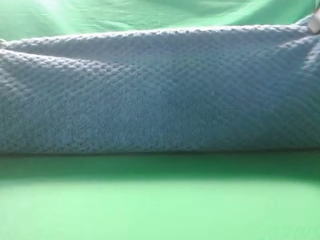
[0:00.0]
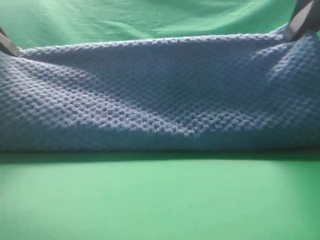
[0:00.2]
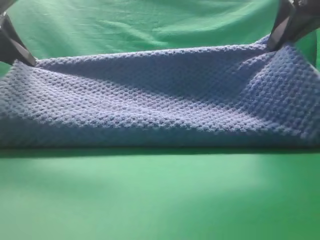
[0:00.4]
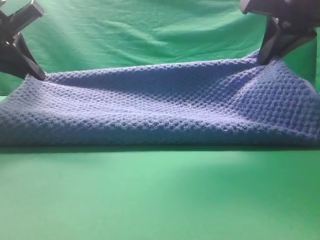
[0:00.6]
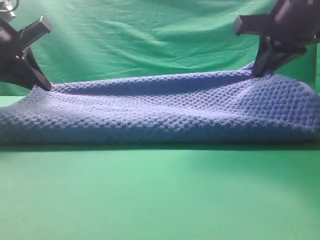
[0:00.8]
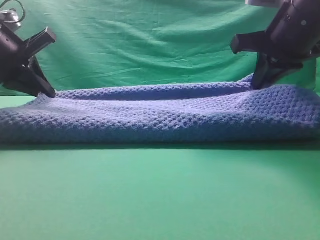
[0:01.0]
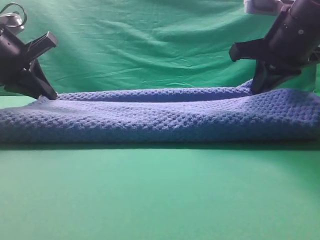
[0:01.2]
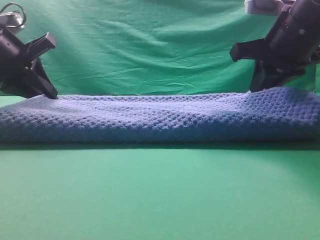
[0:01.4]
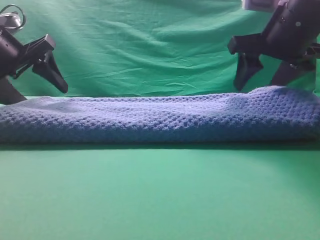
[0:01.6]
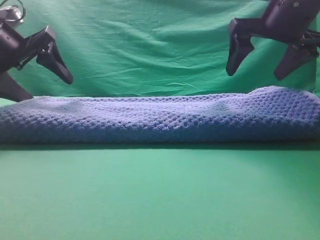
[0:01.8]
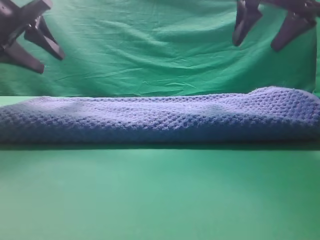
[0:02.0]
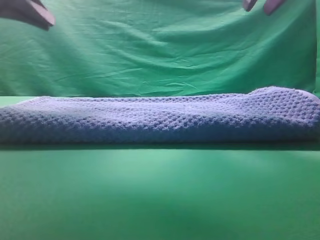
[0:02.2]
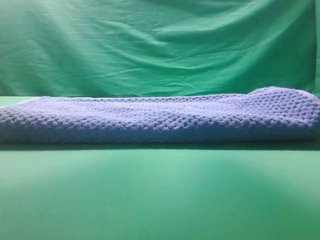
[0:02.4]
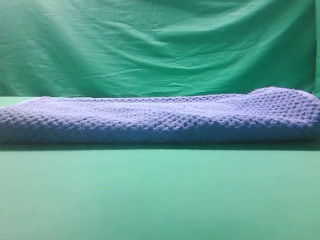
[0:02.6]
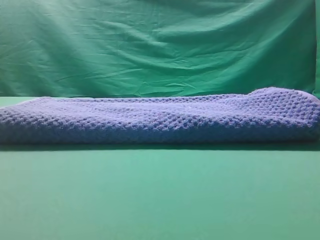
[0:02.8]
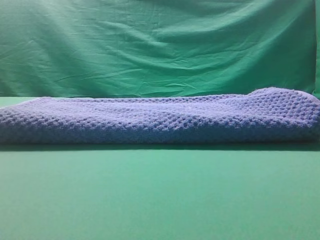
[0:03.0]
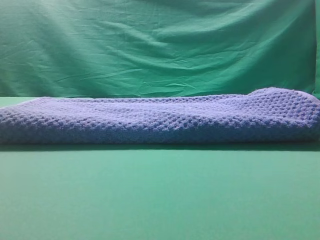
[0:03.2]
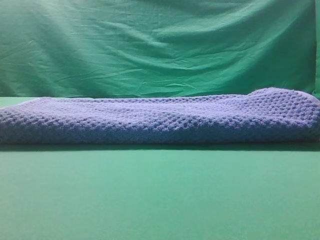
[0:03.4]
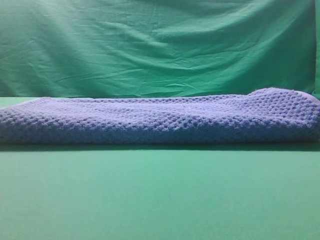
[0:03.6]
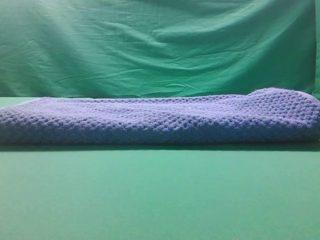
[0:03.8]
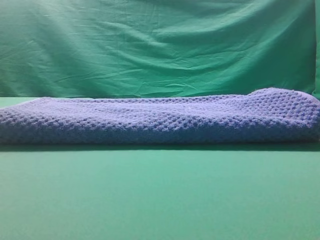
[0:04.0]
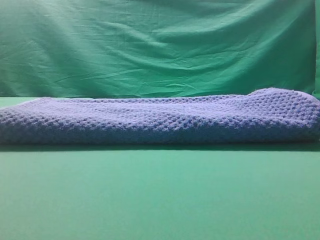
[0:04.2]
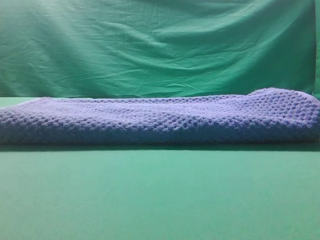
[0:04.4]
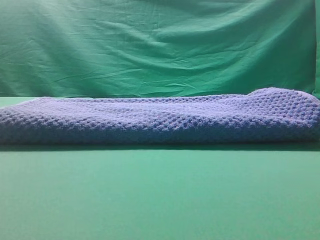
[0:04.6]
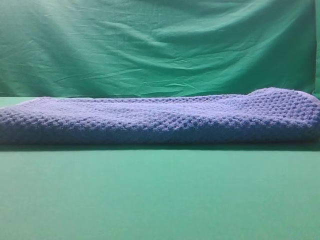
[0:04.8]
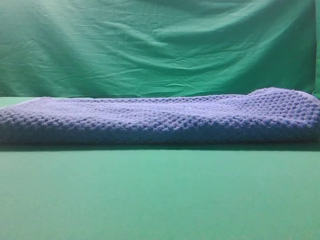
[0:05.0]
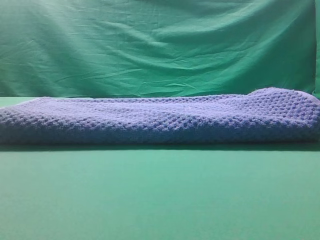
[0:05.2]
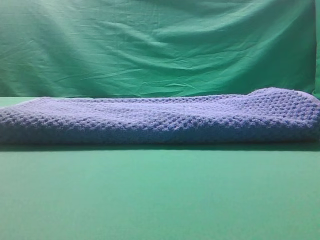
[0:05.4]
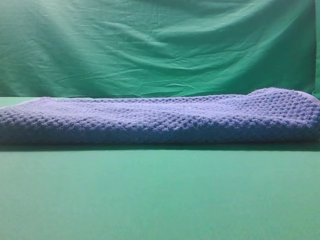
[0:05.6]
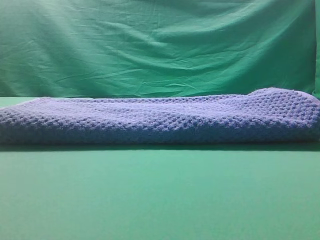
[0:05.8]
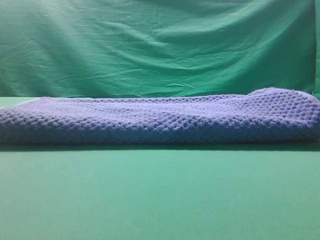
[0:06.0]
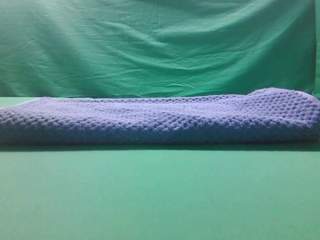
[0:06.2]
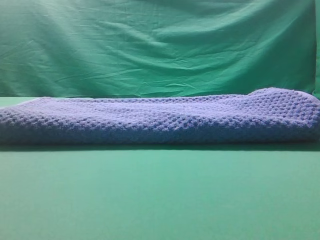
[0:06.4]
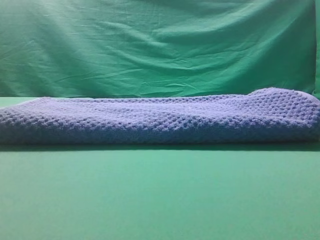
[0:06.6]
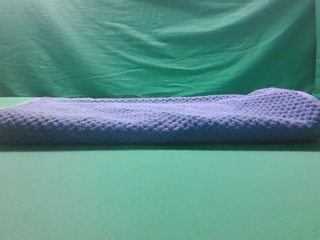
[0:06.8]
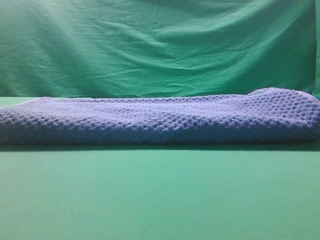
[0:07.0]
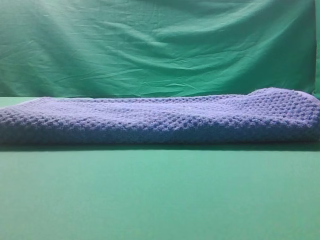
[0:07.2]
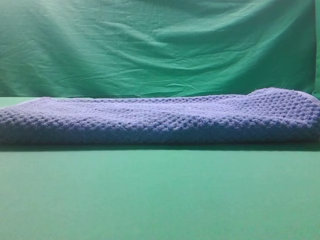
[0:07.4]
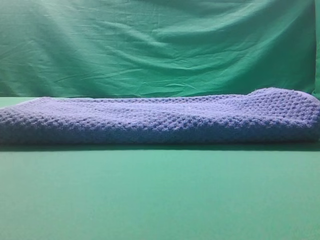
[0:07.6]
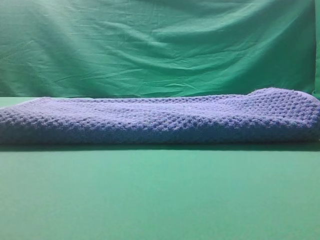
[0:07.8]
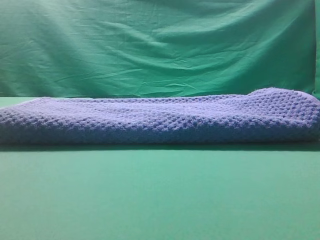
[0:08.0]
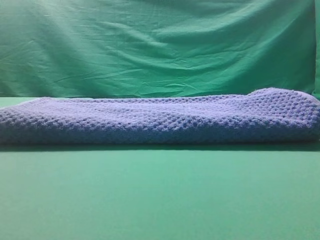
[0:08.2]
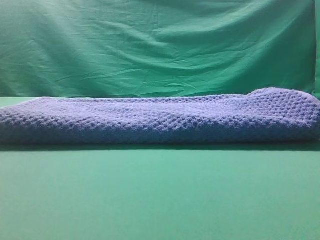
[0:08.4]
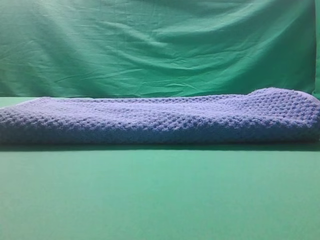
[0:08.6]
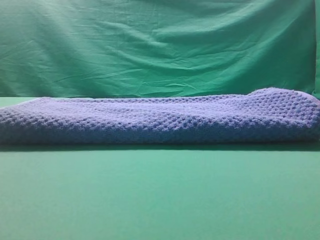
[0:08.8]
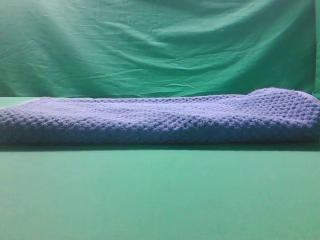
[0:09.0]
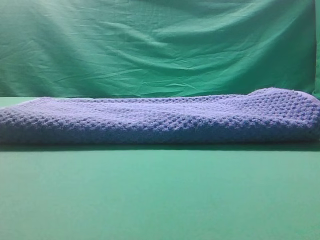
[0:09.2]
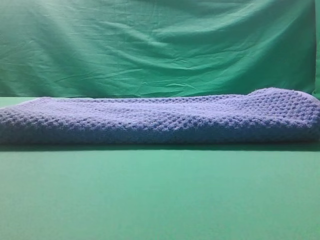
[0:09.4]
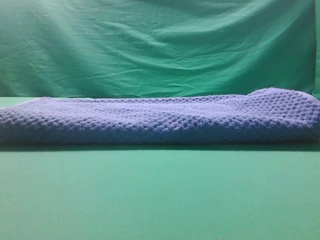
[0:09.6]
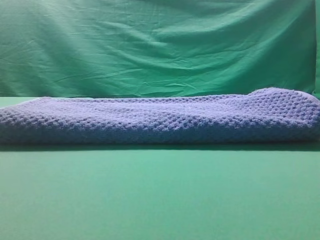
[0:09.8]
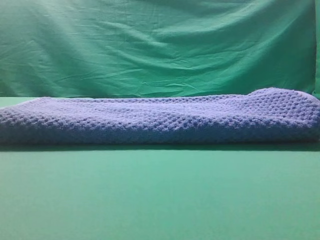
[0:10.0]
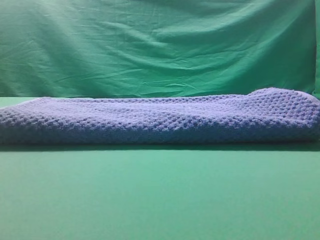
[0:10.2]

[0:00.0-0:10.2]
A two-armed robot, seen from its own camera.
Task of the whole recording: fold the towel on the table twice.
Step, 0:00.0 to 0:02.0: Fold the towel twice on the table.
